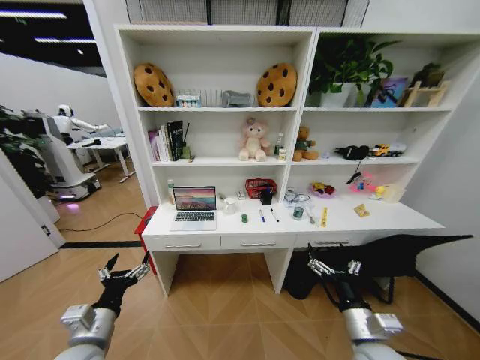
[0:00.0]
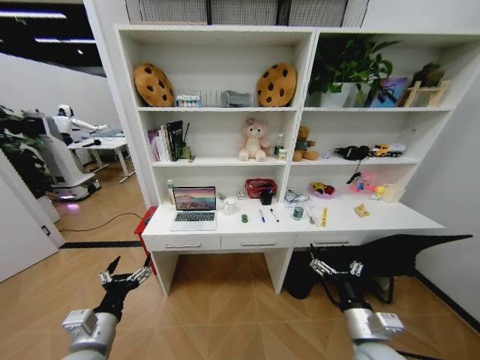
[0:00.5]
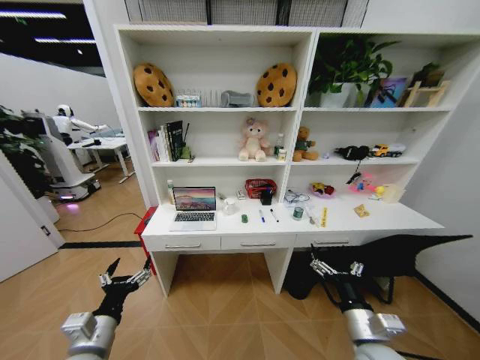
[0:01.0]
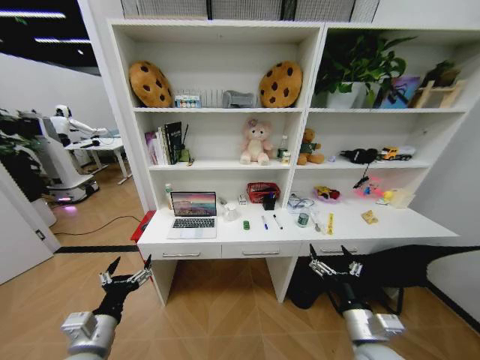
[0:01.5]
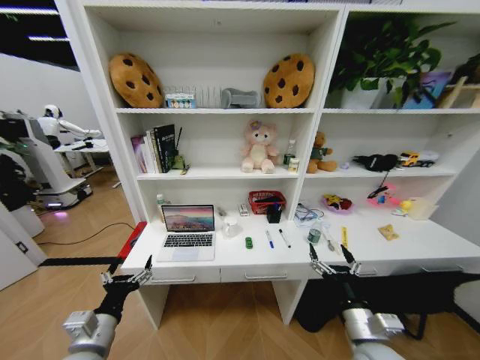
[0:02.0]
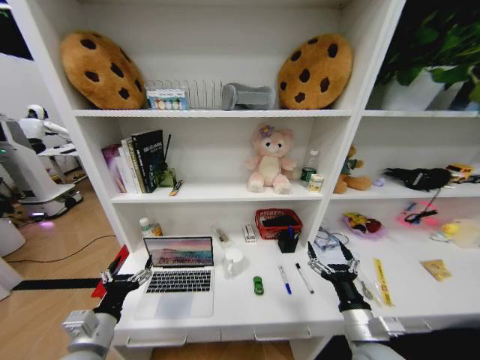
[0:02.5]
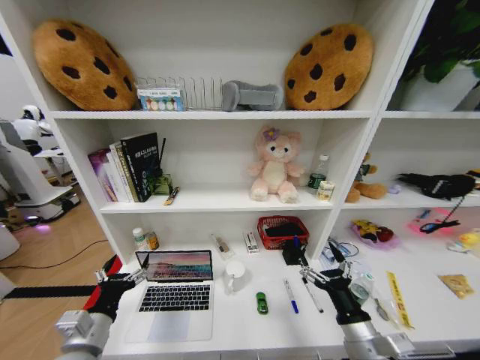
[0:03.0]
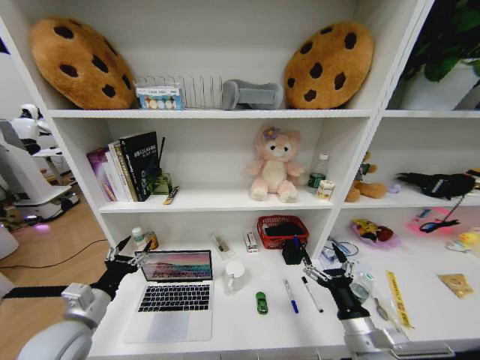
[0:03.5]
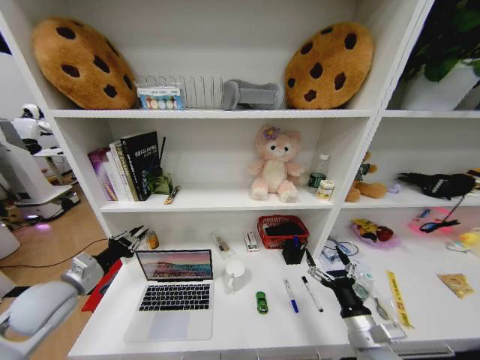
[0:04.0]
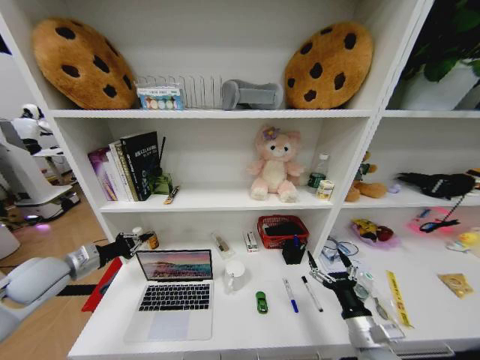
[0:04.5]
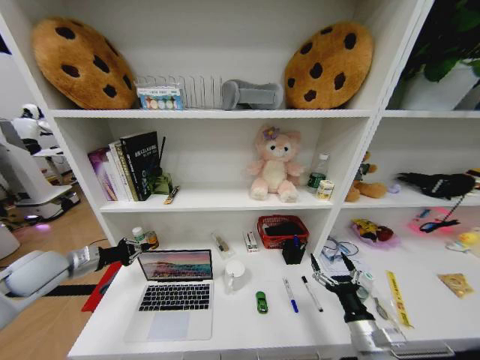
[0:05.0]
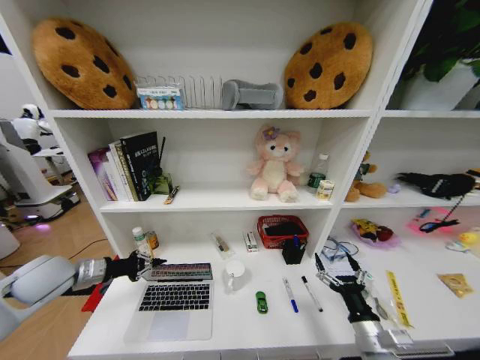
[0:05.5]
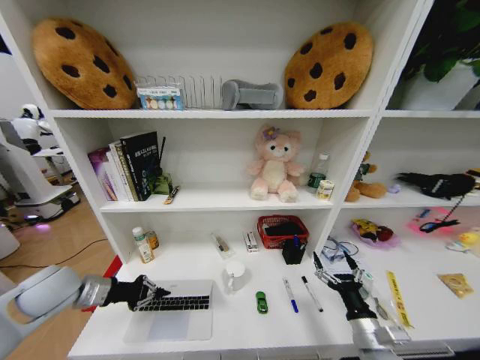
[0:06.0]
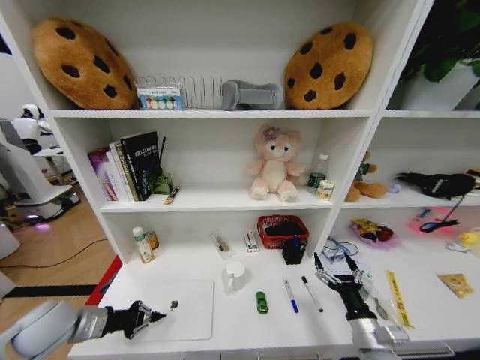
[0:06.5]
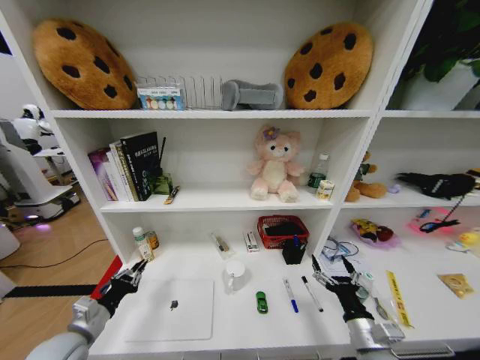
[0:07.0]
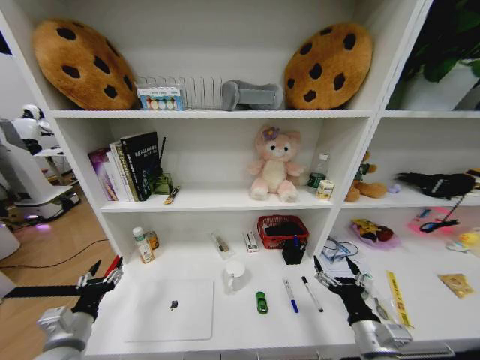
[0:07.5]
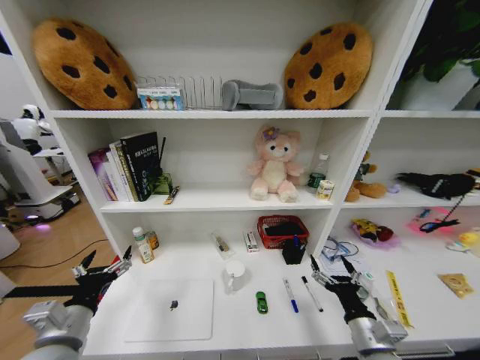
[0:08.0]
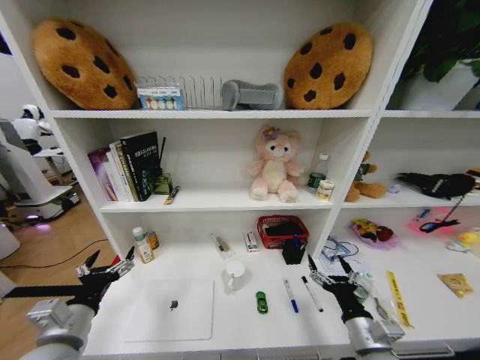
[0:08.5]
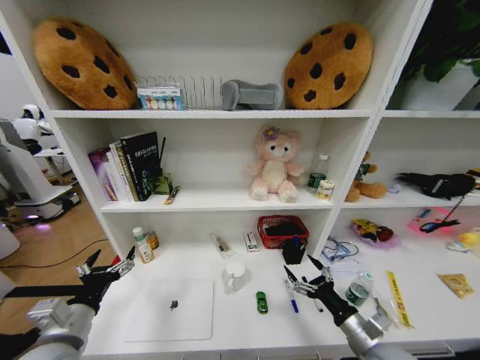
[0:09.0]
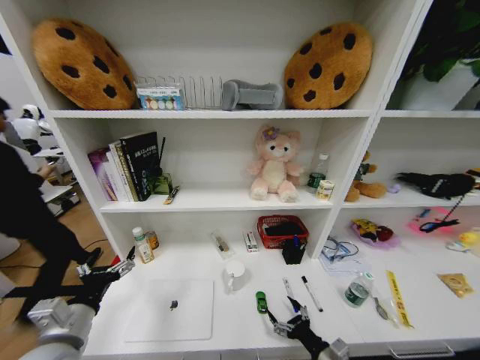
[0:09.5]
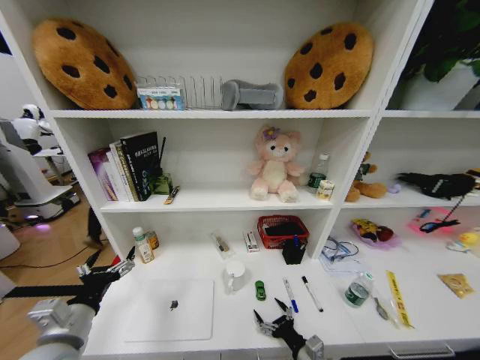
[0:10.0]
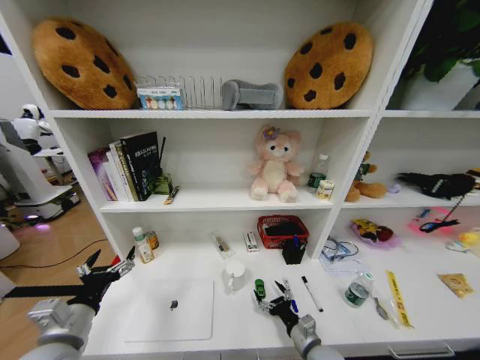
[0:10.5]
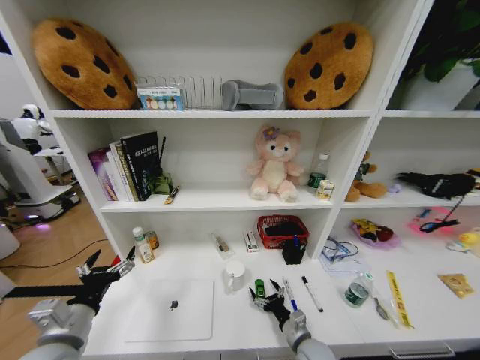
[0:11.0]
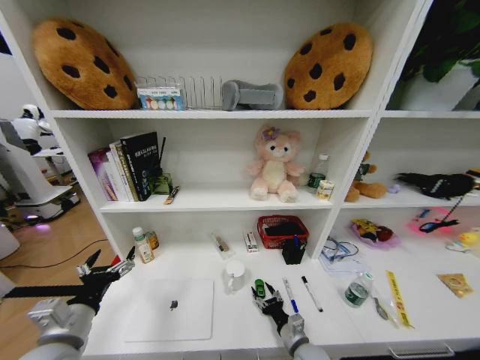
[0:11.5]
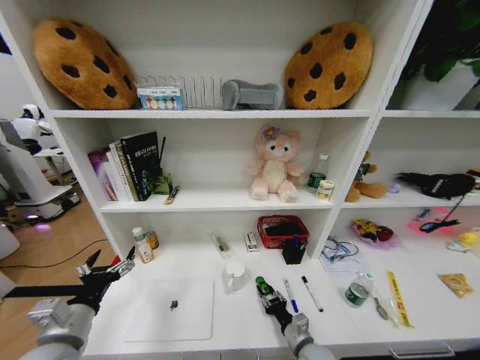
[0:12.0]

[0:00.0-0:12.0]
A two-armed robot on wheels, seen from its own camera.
Task of the whole recording: Organize the objects on the table.
0:02.0 to 0:04.0: The left gripper goes about 15 cm forward, to the left and upward, and closes up.
0:06.0 to 0:08.0: The left gripper moves backward and to the right, about 15 cm, and opens its fingers.
0:08.0 to 0:10.0: The right gripper goes some 15 cm downward and to the left.
0:10.0 to 0:12.0: The right gripper heads forward, covering roughly 5 cm, and closes.

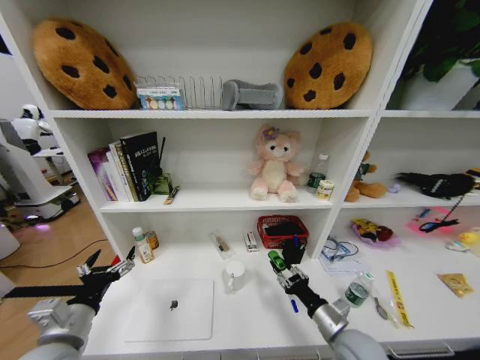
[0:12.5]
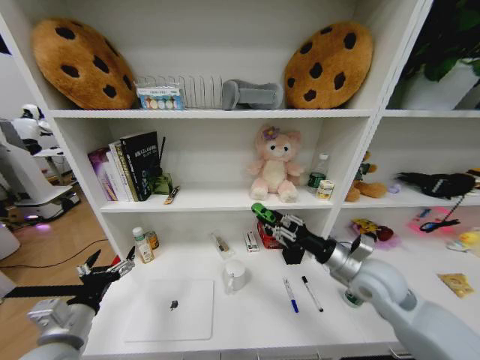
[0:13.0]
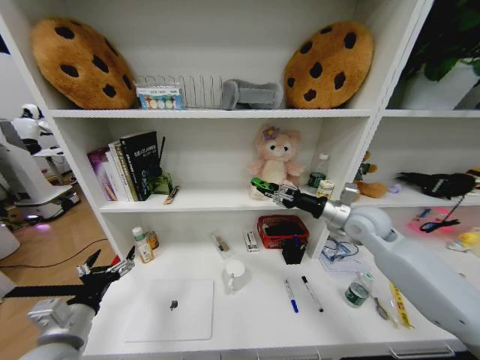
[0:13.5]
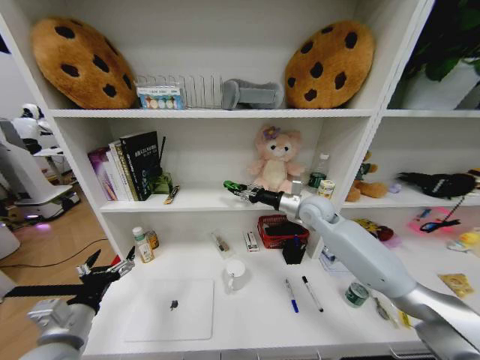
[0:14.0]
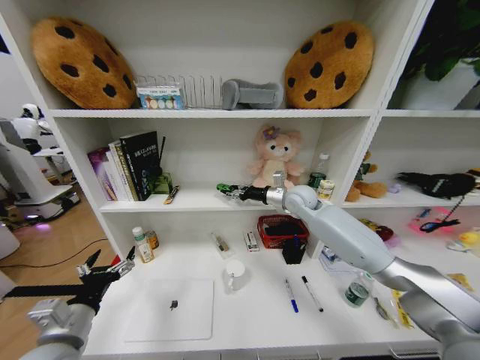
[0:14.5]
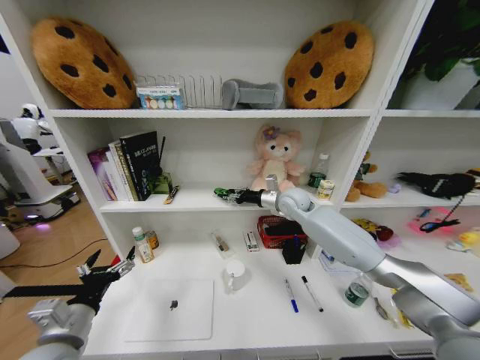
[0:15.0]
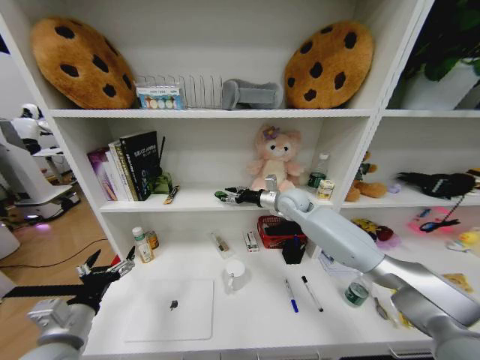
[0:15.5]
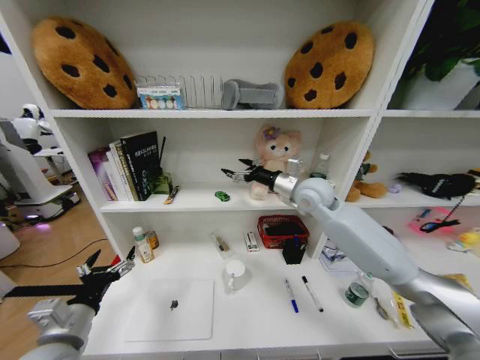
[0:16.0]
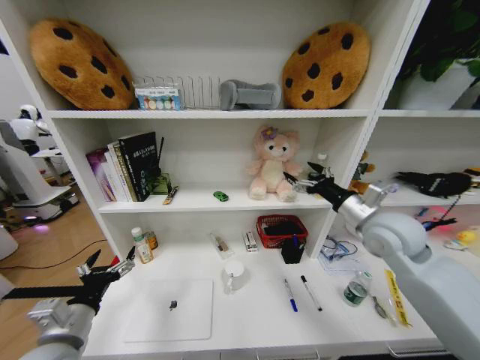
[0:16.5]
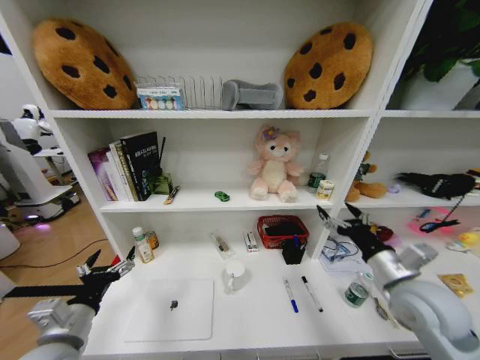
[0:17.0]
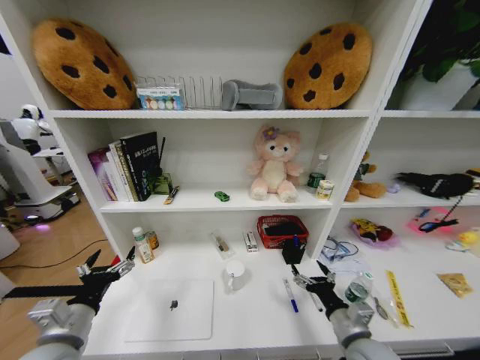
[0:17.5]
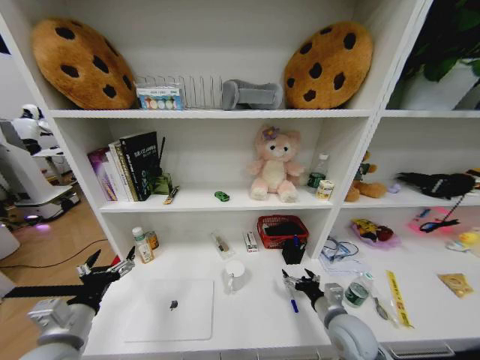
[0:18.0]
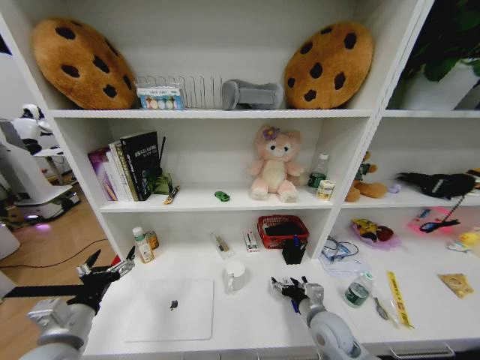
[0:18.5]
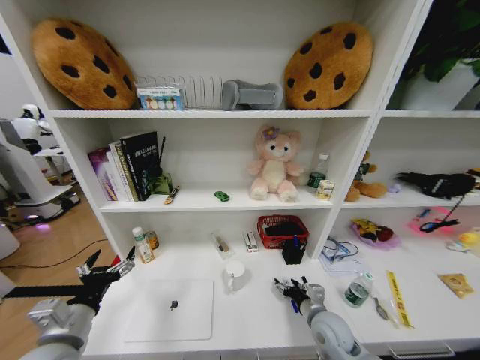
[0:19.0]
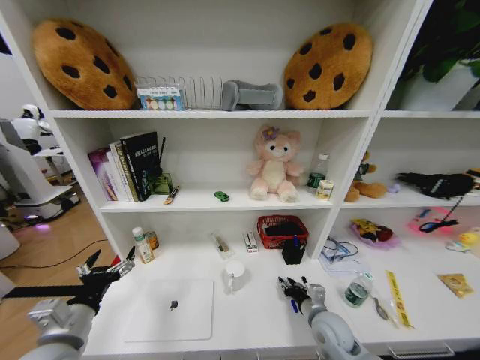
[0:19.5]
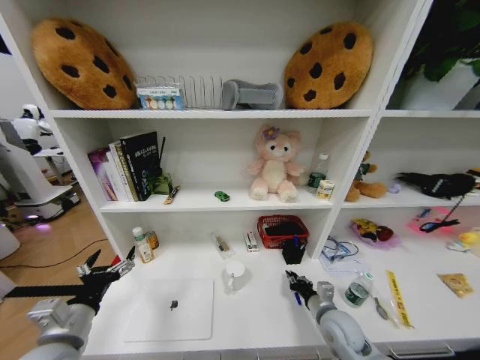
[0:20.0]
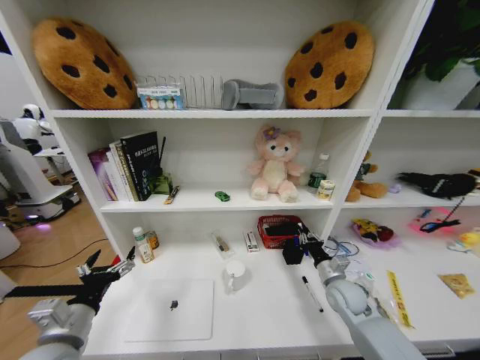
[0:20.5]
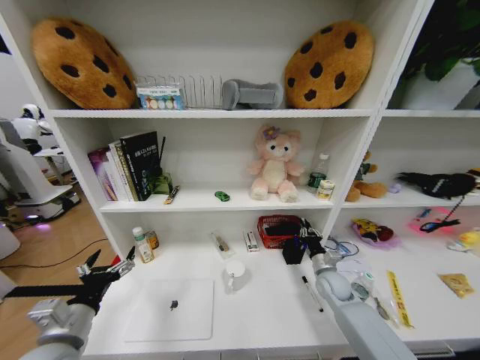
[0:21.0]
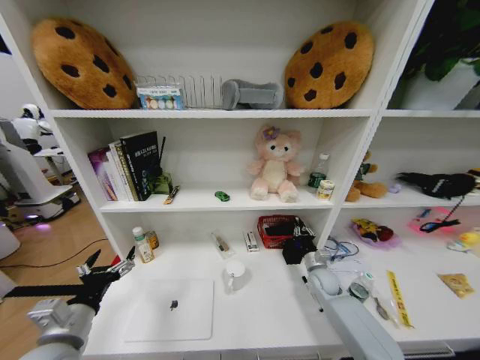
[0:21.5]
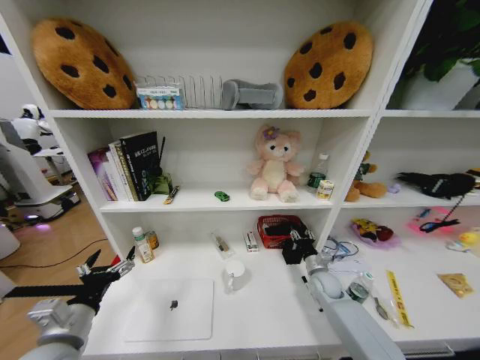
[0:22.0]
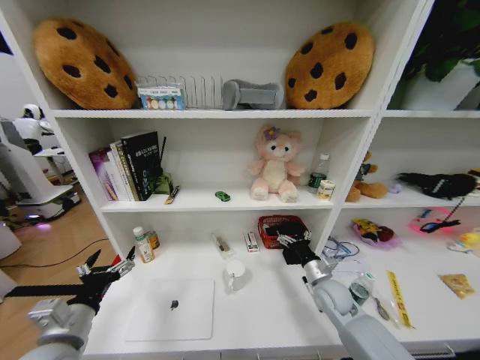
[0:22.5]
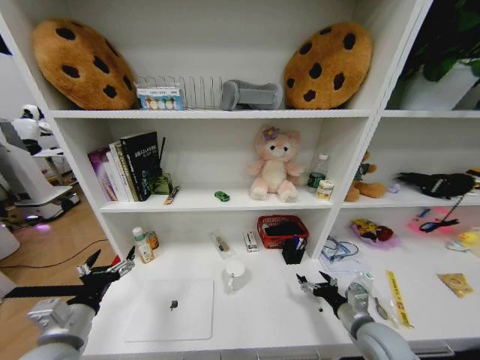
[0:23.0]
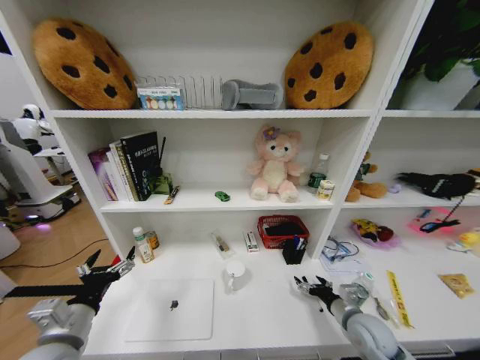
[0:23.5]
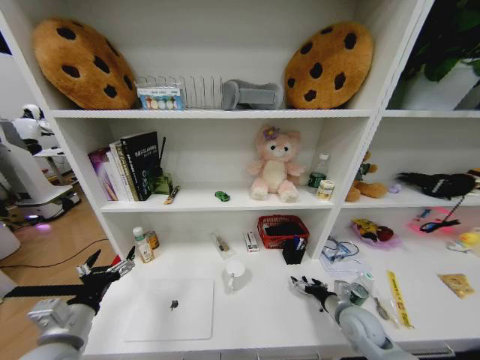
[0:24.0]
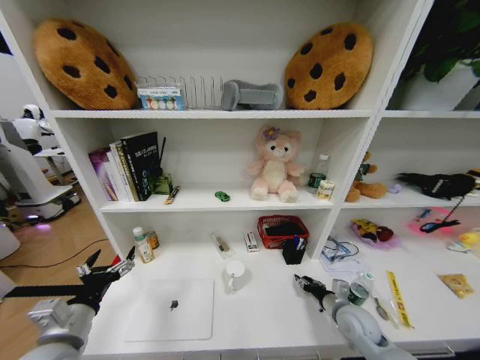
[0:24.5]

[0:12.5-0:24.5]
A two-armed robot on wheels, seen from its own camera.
Task of the whole recording: Organize the objects on the table.
0:12.5 to 0:14.5: The right gripper travels forward and upward by roughly 40 cm.
0:14.5 to 0:16.5: The right gripper goes some 20 cm backward and to the right, and opens up.
0:16.5 to 0:18.5: The right gripper travels downward by about 30 cm.
0:18.5 to 0:20.5: The right gripper shifts roughly 10 cm to the right and forward, and closes up.
0:20.5 to 0:22.5: The right gripper opens up.
0:22.5 to 0:24.5: The right gripper travels backward by some 5 cm, and closes its fingers.

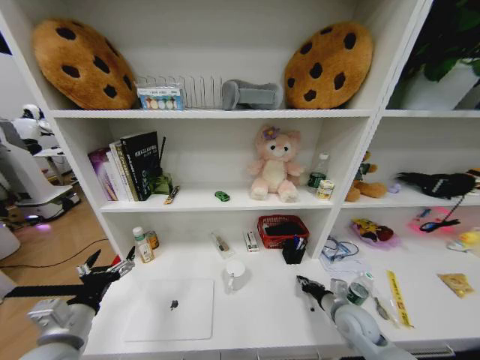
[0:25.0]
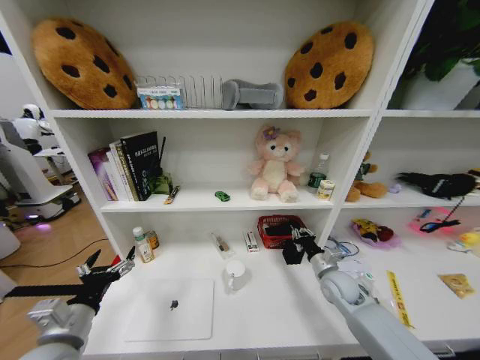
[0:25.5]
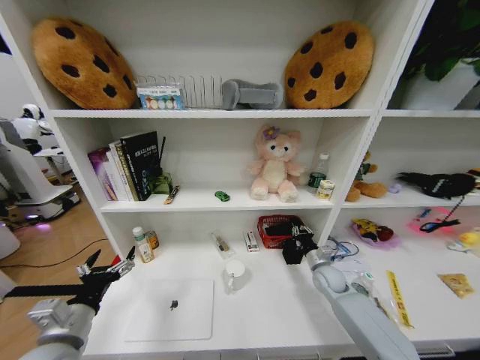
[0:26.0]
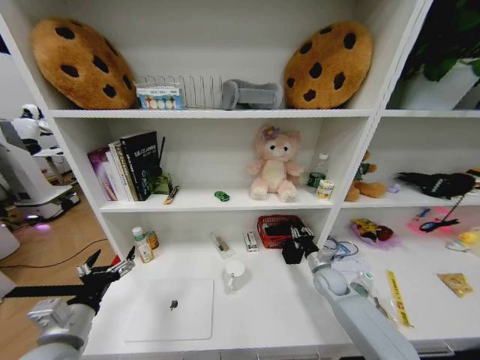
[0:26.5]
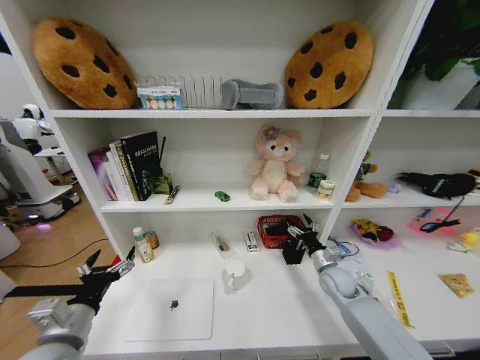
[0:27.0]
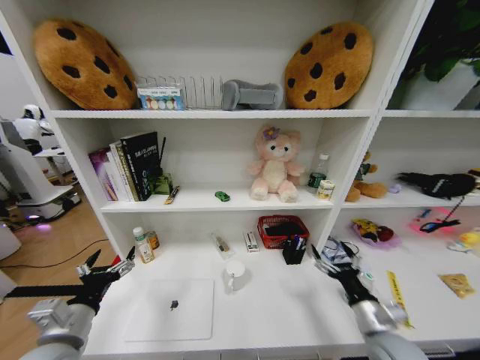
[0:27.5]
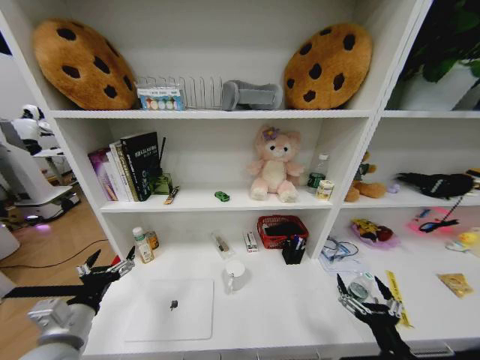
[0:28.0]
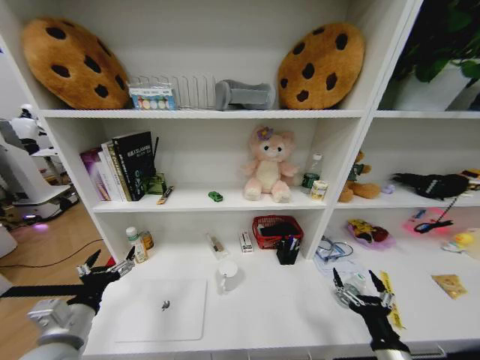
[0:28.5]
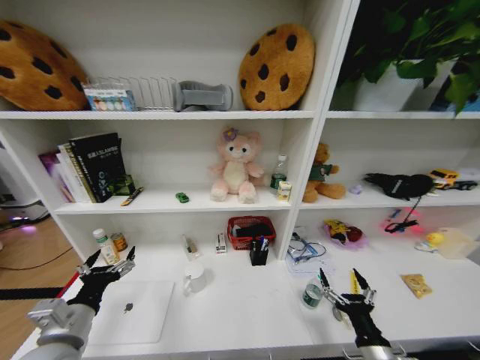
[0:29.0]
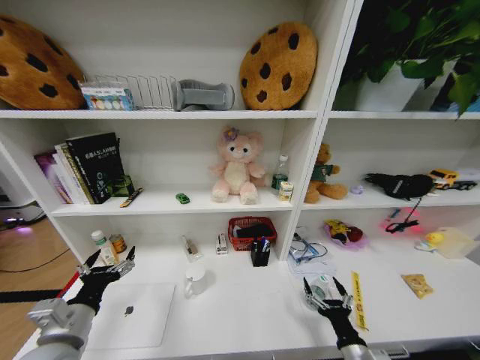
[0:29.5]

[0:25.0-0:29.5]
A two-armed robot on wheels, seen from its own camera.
Task of the whole recording: Organize the objects on the table.
0:25.0 to 0:27.0: The right gripper heads forward, covering some 10 cm, and opens.
0:27.0 to 0:29.5: The right gripper heads backward, covering some 25 cm.
